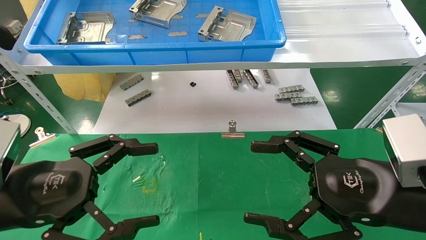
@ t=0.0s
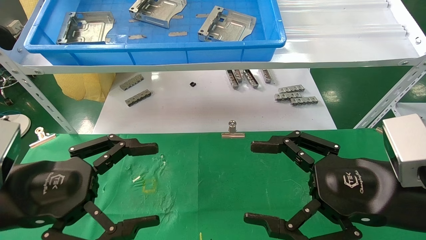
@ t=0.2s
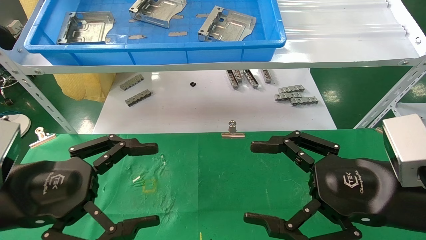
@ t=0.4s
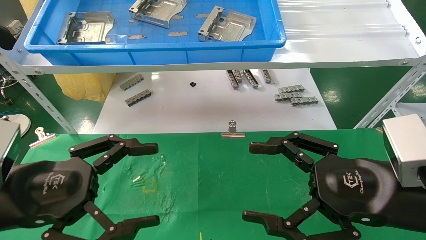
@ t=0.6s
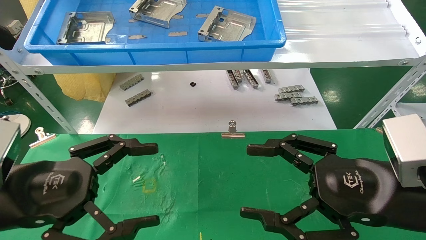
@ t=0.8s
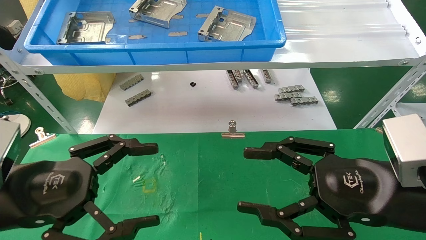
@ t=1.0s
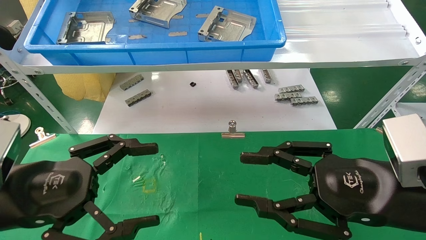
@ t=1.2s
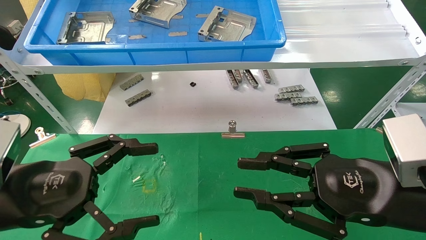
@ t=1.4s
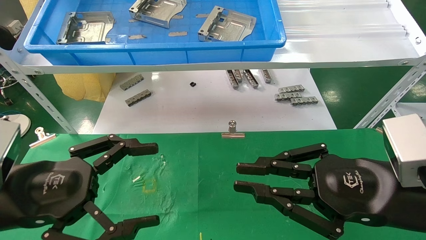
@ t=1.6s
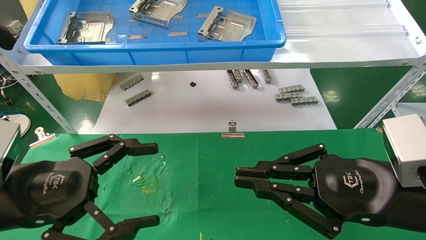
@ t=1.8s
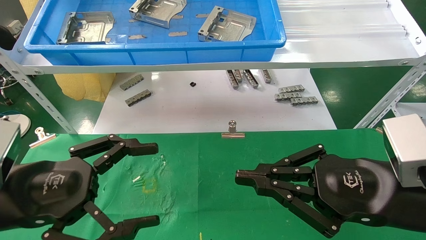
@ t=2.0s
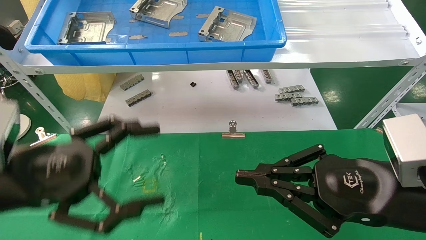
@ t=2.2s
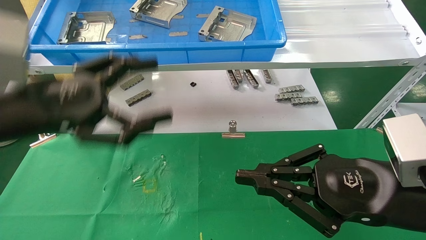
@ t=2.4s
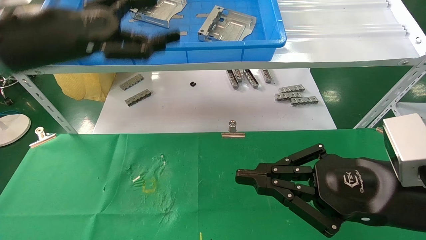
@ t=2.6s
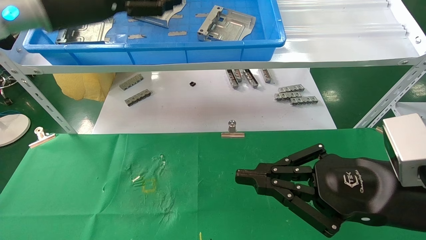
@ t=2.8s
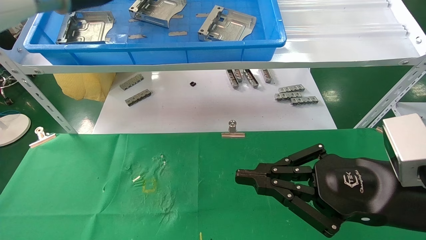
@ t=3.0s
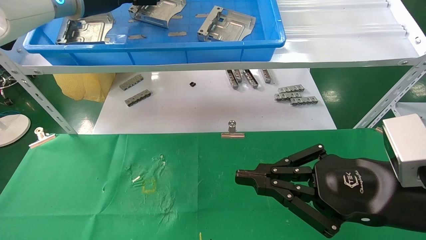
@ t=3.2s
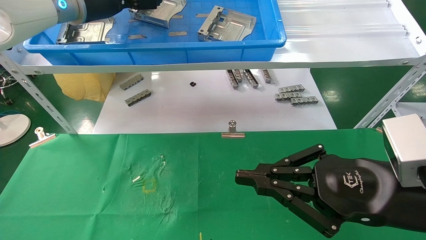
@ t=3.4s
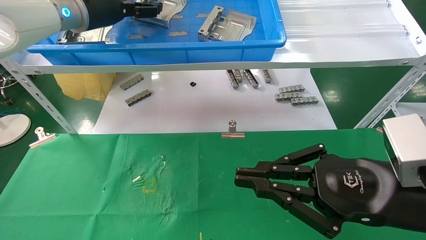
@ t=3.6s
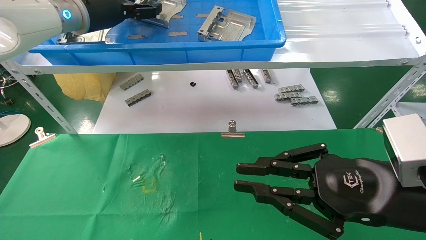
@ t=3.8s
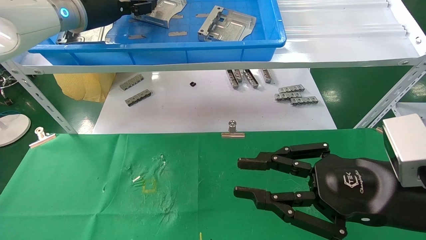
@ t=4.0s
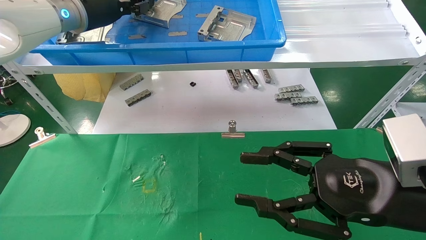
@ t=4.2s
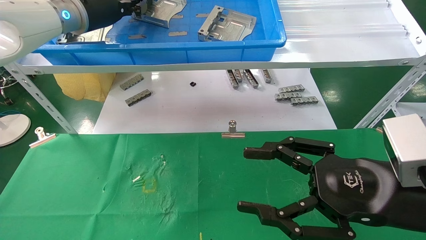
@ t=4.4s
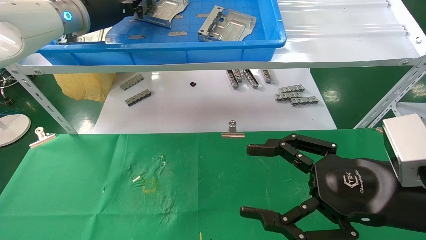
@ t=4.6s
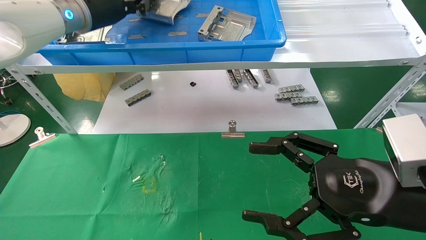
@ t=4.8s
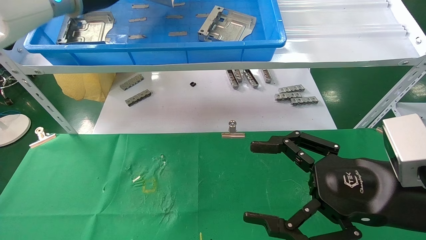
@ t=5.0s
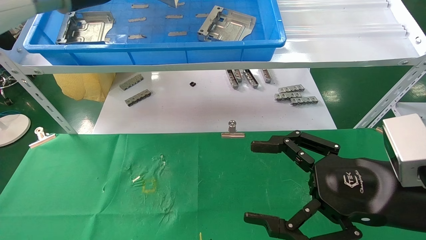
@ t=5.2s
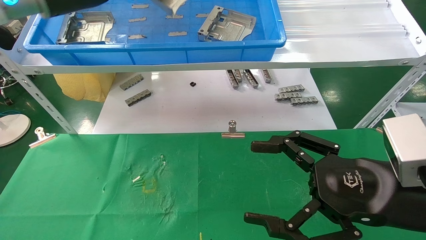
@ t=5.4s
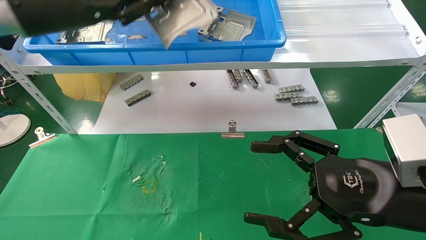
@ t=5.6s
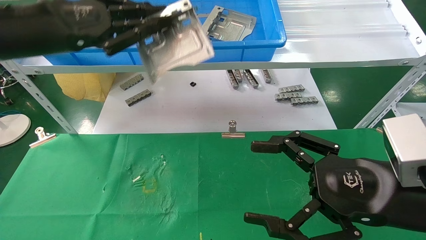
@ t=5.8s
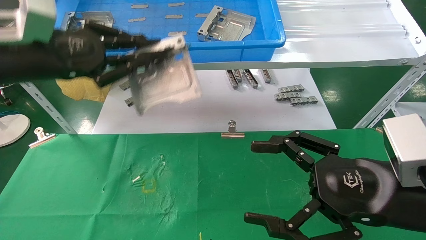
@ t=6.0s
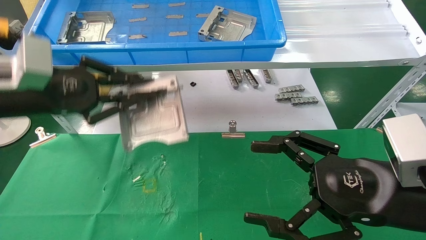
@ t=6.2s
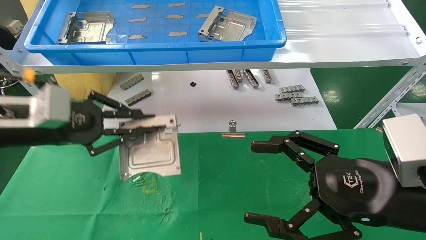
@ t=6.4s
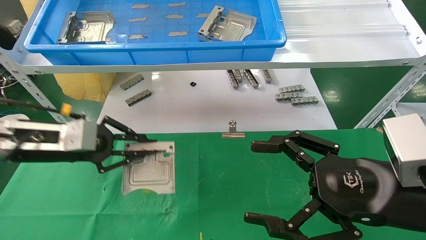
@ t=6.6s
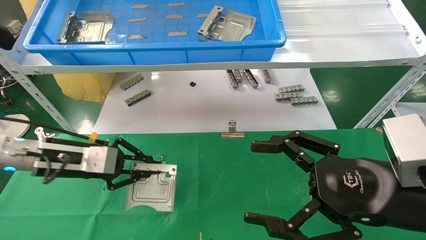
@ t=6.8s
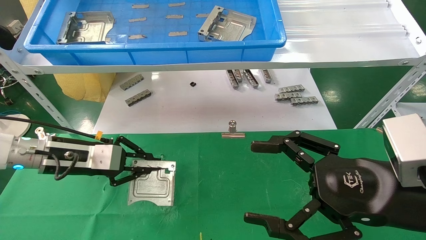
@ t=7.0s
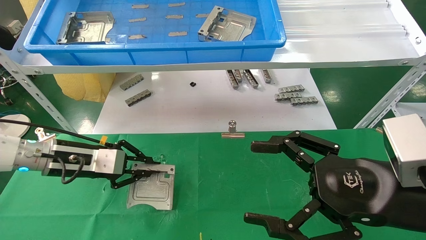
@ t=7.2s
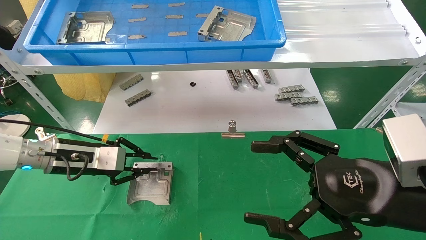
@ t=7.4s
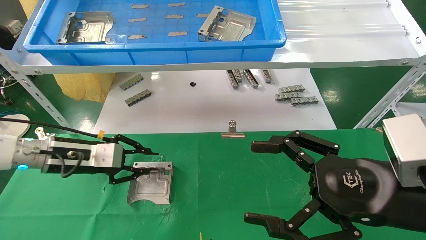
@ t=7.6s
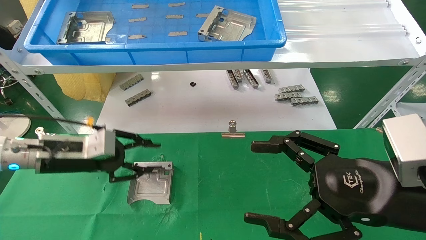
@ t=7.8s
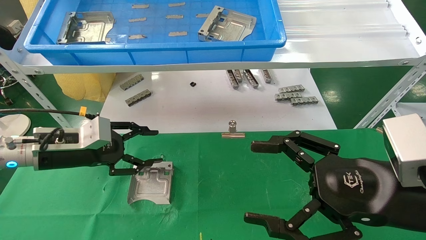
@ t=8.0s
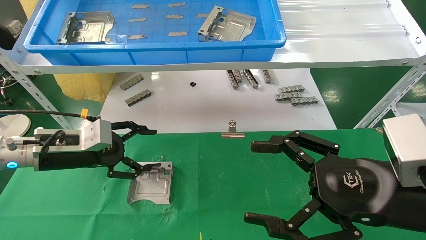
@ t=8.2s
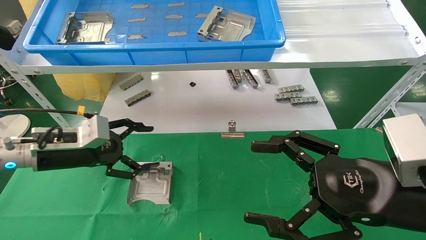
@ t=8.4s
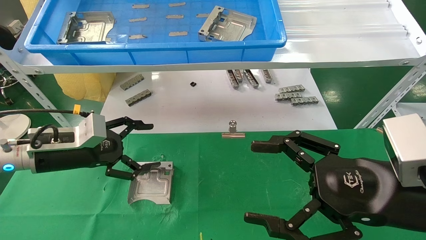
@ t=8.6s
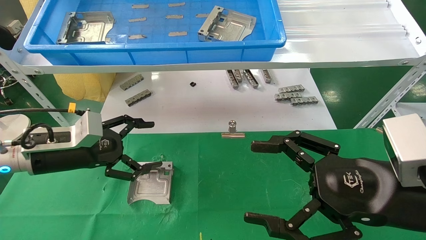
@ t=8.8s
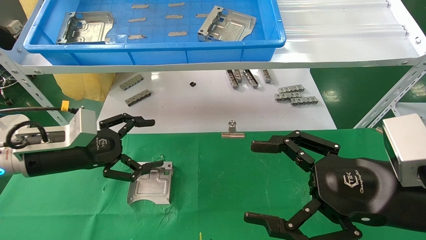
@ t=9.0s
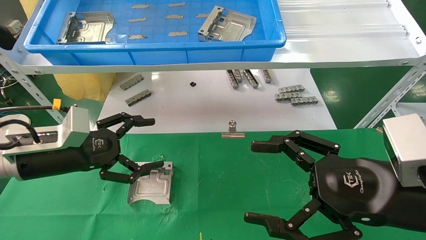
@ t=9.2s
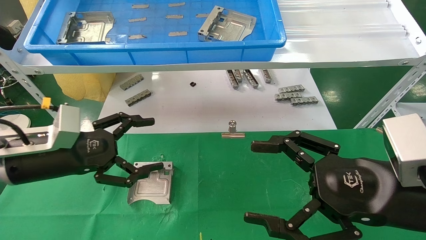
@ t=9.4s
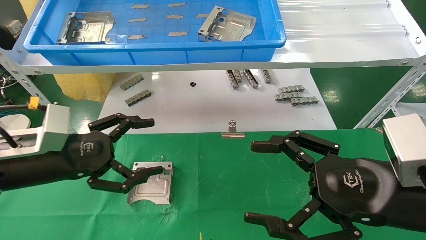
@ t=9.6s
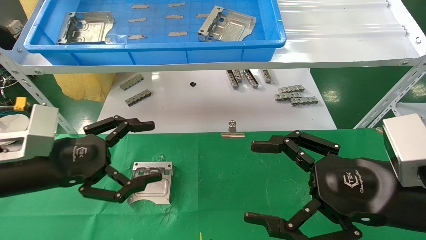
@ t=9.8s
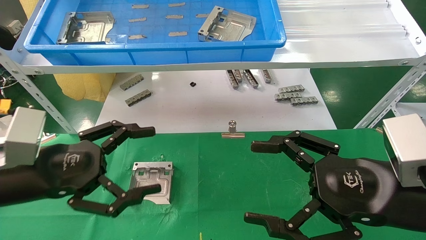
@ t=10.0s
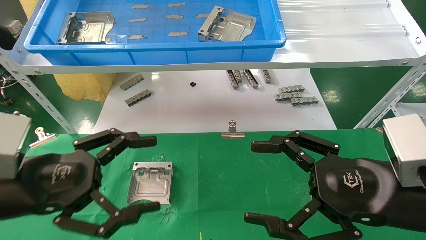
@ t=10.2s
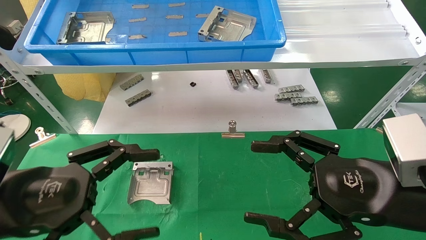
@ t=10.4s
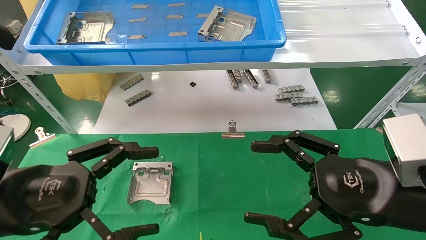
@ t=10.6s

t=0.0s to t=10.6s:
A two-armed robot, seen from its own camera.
Task of the whole recording: use the mechanical arm to pick up the parts and place them on the table.
Step, t=2.2s to t=4.4s: Pick up the hard drive bracket from the feeding area.
Step, t=4.6s to t=7.8s: Place the hard drive bracket into the box.
t=0.0s to t=1.6s: The right gripper closes up.
t=1.6s to t=3.0s: The left gripper shifts about 35 cm upward and forward.
t=3.0s to t=4.6s: The left gripper closes its fingers. Meanwhile the right gripper opens up.
t=4.6s to t=6.0s: The left gripper travels backward, downward and to the left by approximately 15 cm.
t=6.0s to t=7.6s: The left gripper moves downward, roughly 20 cm.
t=7.6s to t=9.0s: The left gripper opens up.
t=9.0s to t=10.6s: The left gripper moves backward, roughly 15 cm.

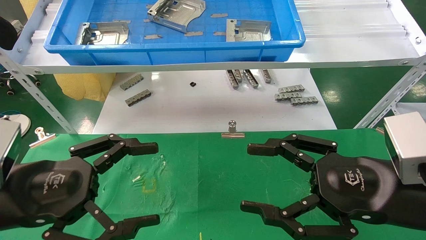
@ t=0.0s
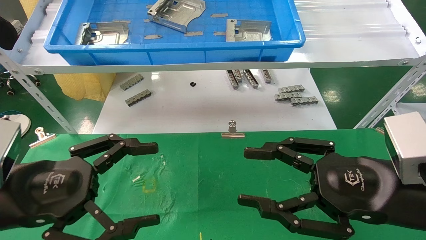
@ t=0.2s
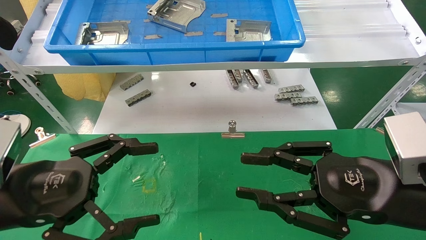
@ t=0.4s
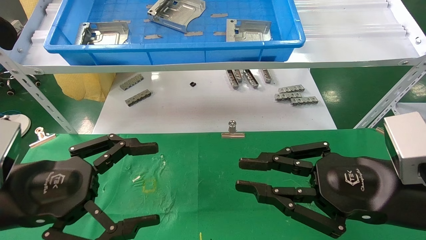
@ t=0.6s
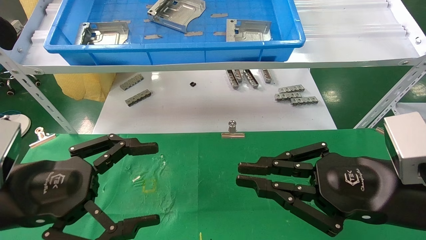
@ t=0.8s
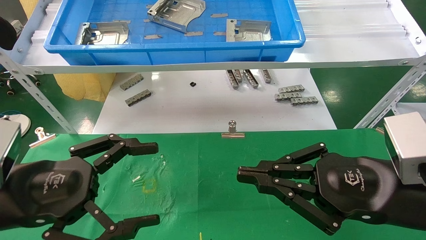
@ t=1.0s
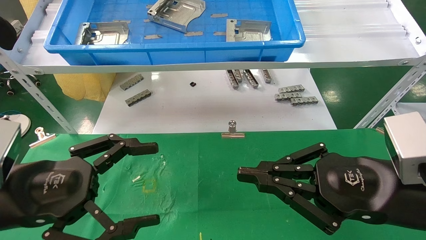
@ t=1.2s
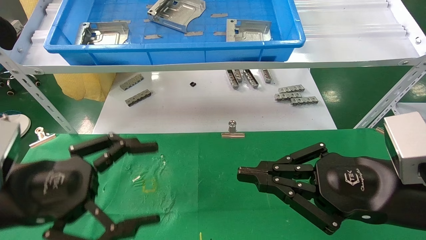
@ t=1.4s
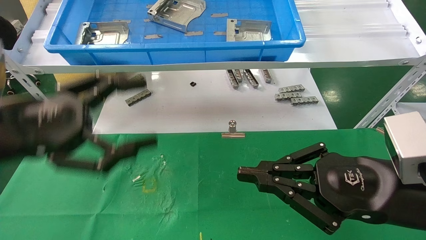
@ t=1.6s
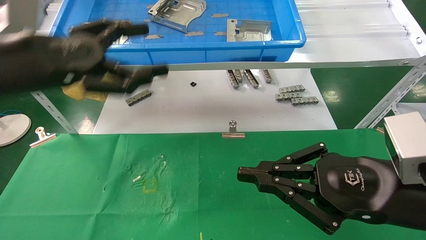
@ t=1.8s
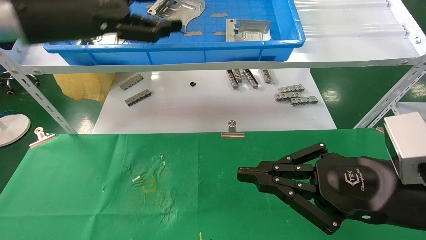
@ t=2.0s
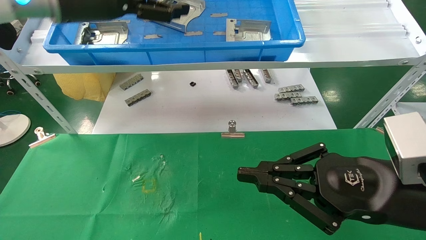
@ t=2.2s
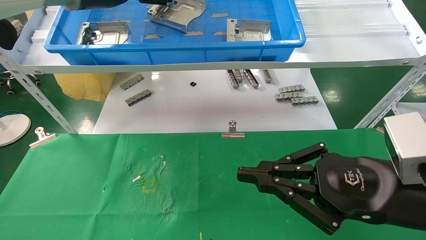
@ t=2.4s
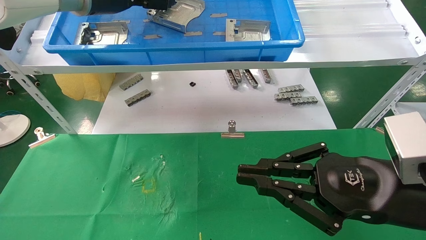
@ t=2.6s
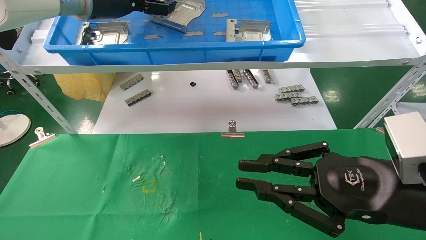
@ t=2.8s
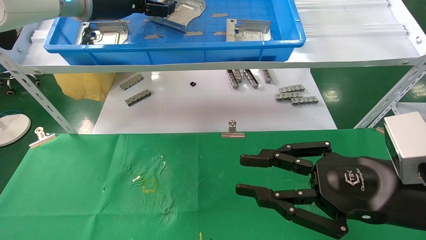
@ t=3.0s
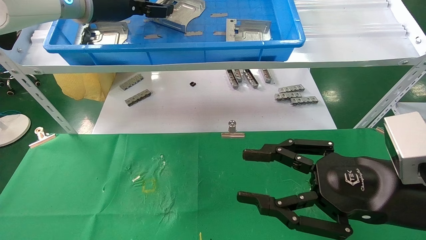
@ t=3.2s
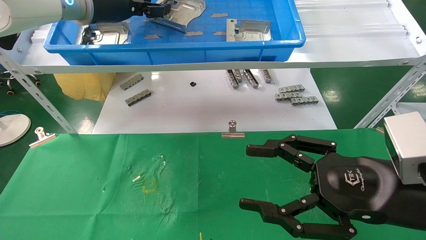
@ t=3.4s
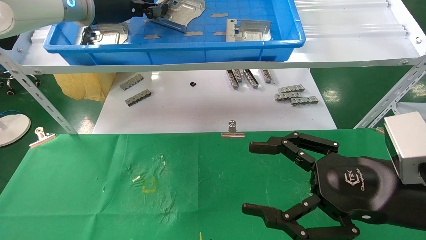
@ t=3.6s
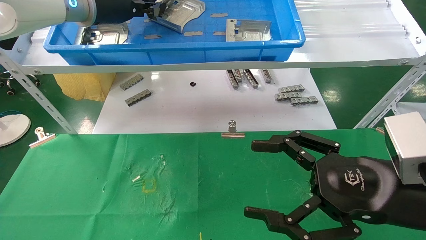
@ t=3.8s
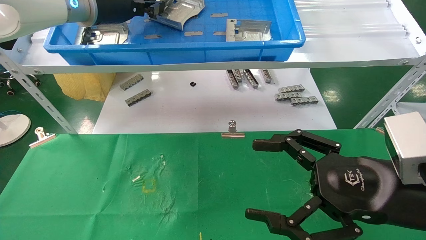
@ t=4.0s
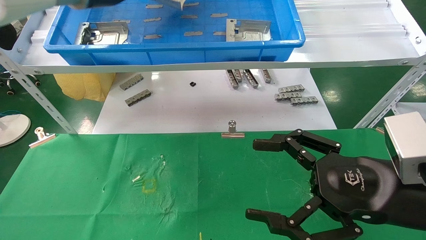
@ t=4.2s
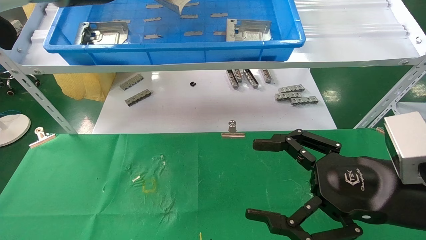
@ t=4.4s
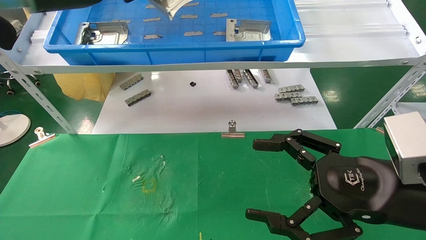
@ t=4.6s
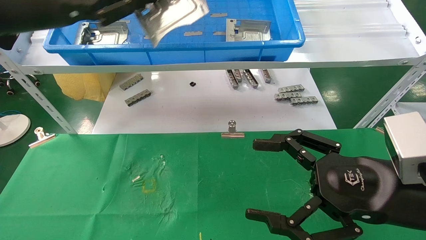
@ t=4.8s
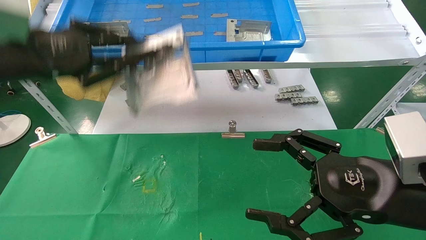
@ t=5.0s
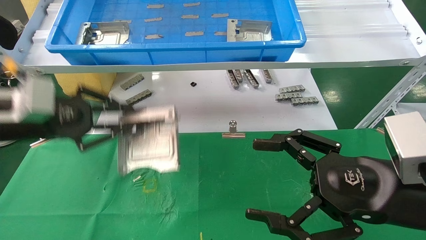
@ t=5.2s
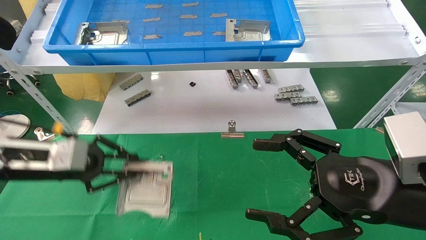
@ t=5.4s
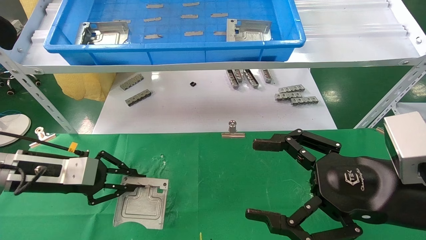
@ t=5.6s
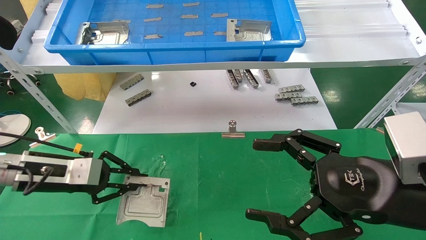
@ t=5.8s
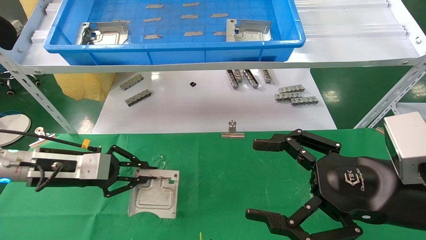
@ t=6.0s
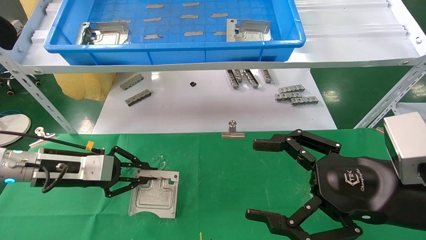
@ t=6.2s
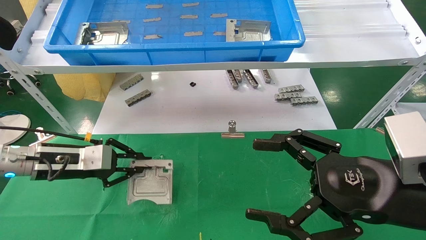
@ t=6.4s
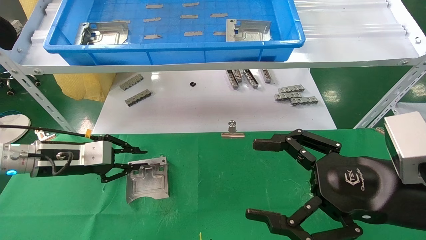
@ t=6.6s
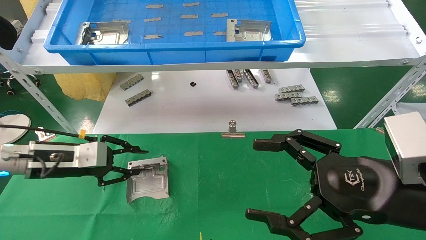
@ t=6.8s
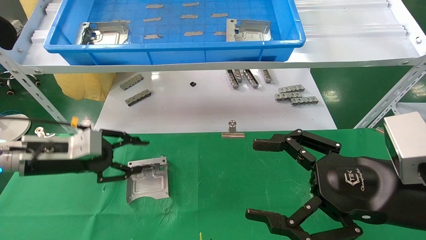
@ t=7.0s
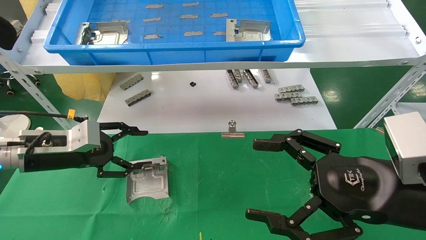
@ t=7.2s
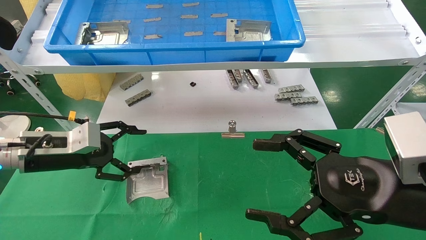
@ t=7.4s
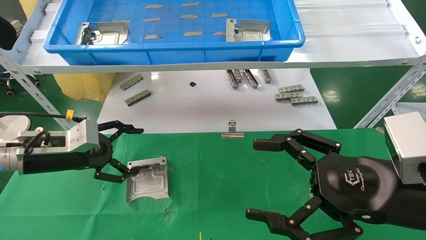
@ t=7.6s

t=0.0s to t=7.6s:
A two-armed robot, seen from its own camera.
Task of the whole recording: use the mechanical arm to pick up the parts and place them on the table.
Step, t=1.4s to t=3.8s: Pick up the hard drive bracket from the feeding area.
Step, t=4.0s to t=7.0s: Place the hard drive bracket into the box.
t=0.0s to t=1.6s: The right gripper closes up; the left gripper shifts about 10 cm upward.
t=1.6s to t=3.0s: The left gripper is displaced forward and upward by approximately 25 cm.
t=3.0s to t=4.6s: The left gripper travels backward by about 5 cm, and closes up. Meanwhile the right gripper opens its fingers.
t=4.6s to t=6.0s: The left gripper goes roughly 30 cm downward.
t=6.0s to t=7.6s: The left gripper opens up.
